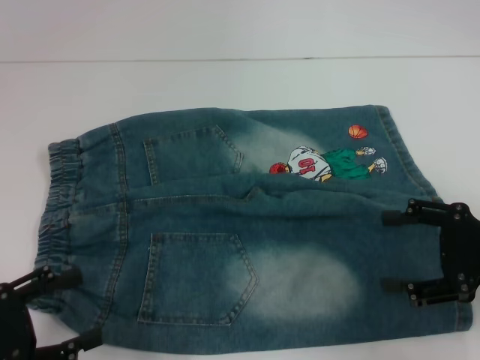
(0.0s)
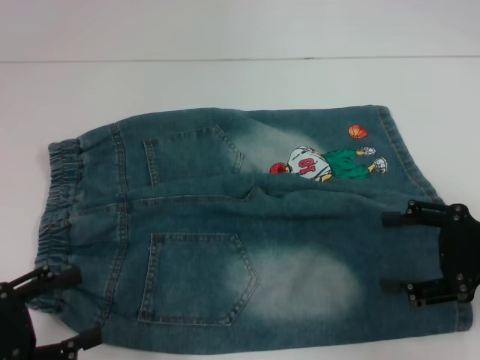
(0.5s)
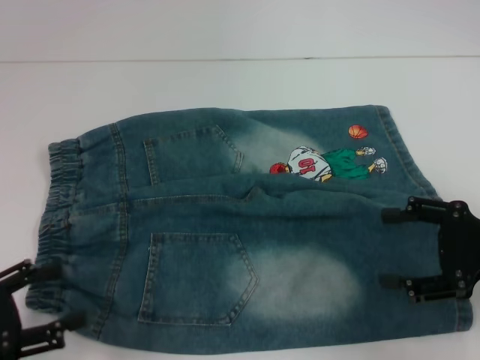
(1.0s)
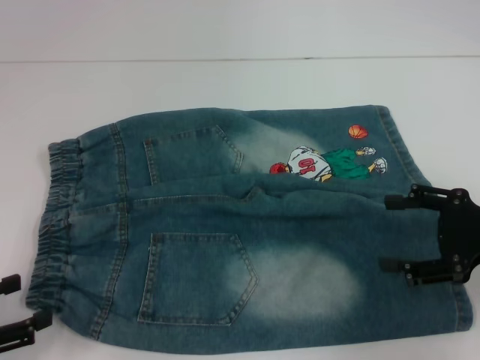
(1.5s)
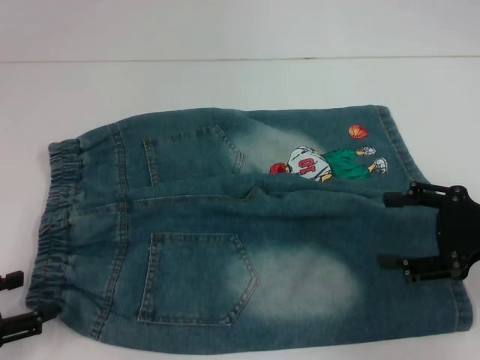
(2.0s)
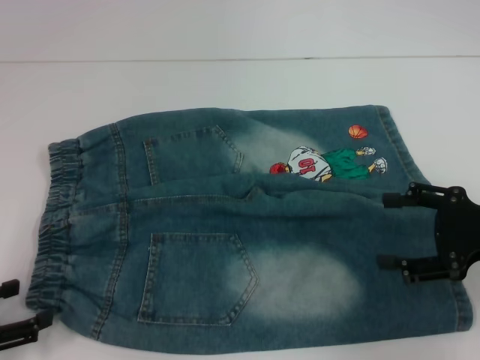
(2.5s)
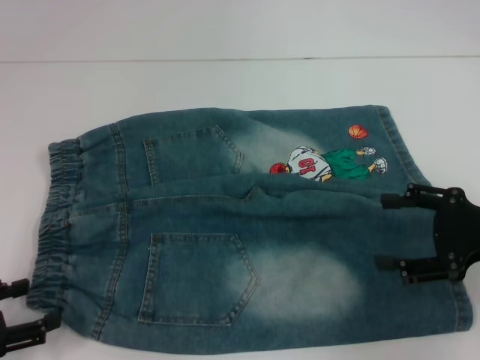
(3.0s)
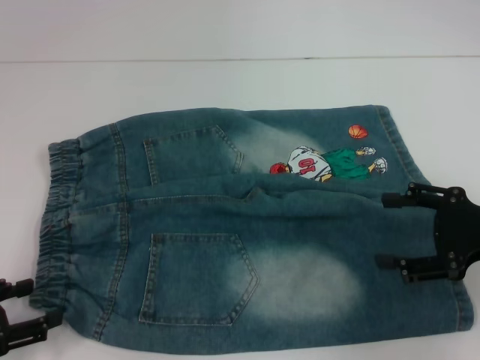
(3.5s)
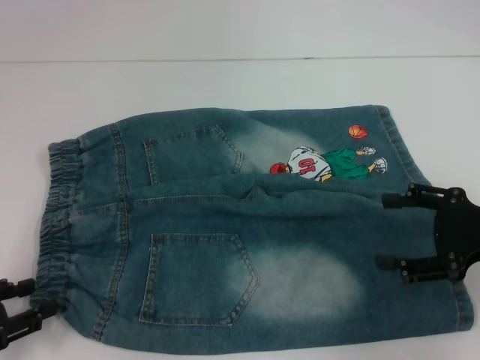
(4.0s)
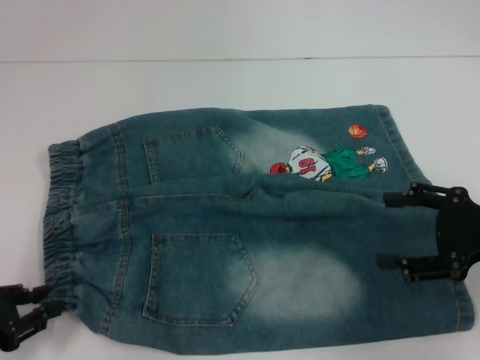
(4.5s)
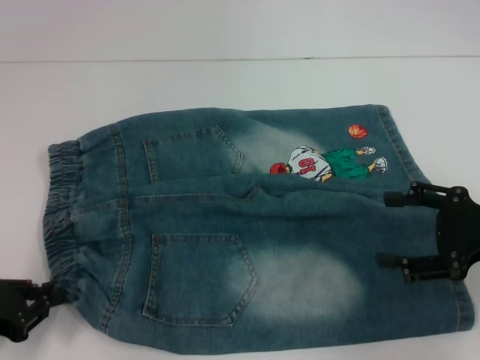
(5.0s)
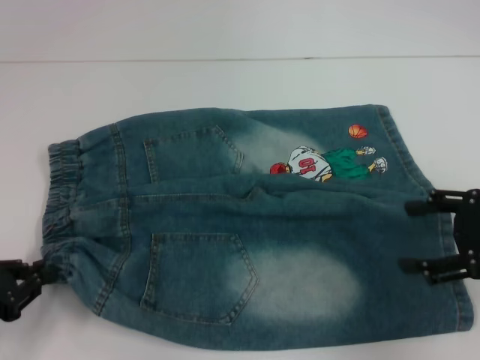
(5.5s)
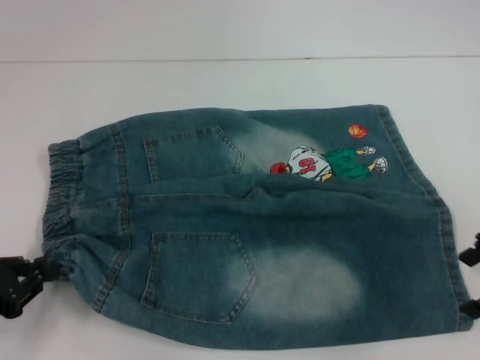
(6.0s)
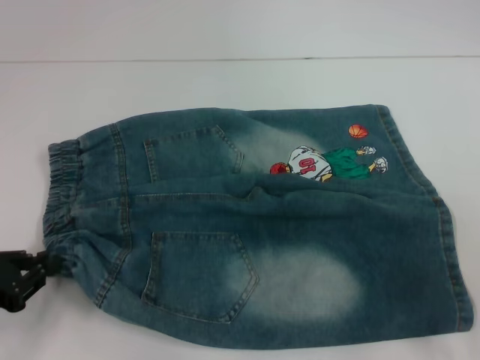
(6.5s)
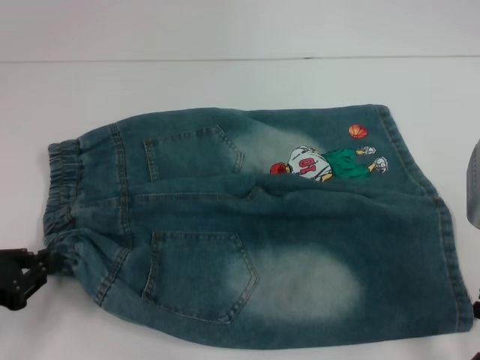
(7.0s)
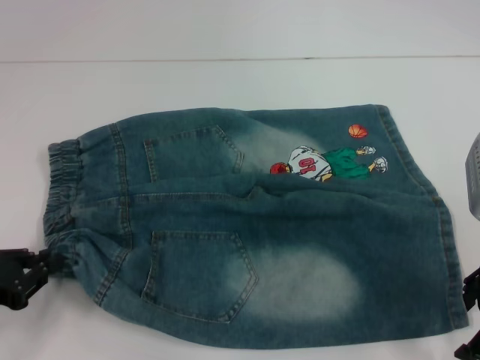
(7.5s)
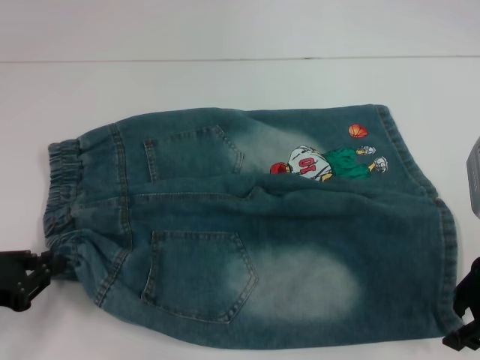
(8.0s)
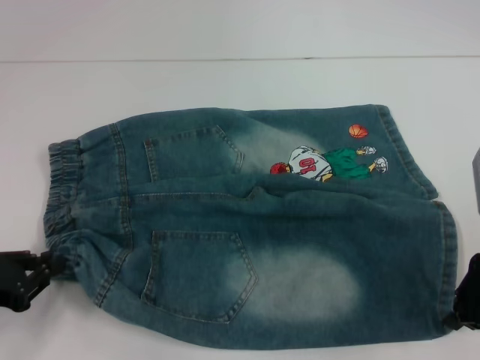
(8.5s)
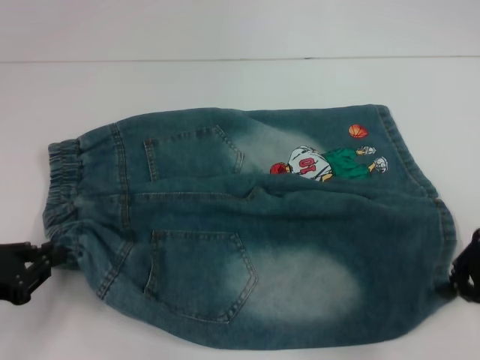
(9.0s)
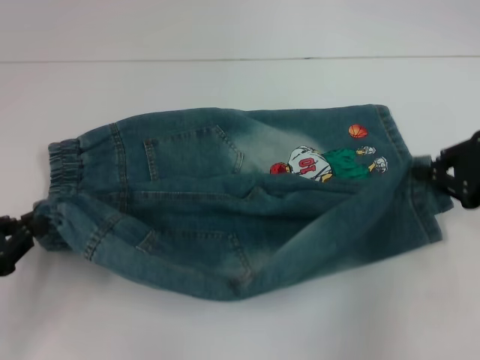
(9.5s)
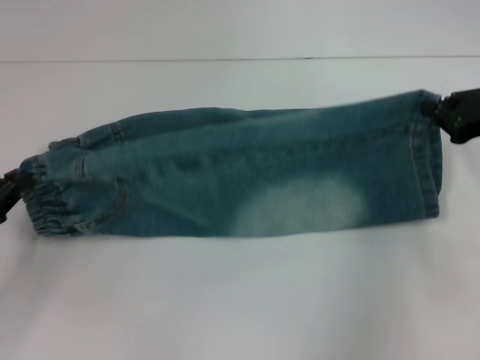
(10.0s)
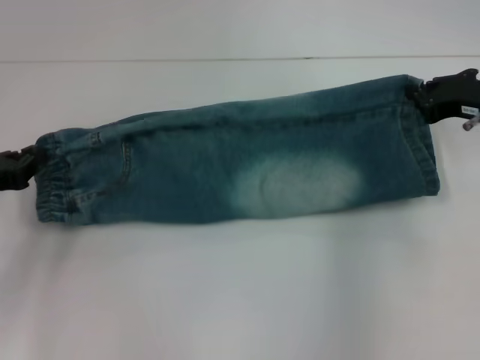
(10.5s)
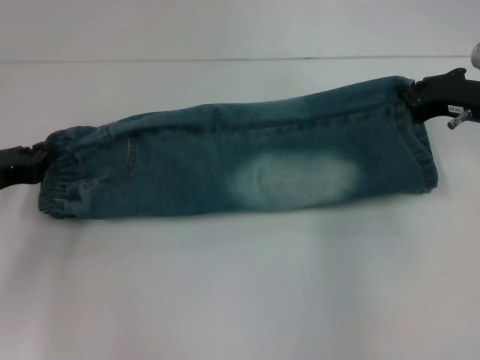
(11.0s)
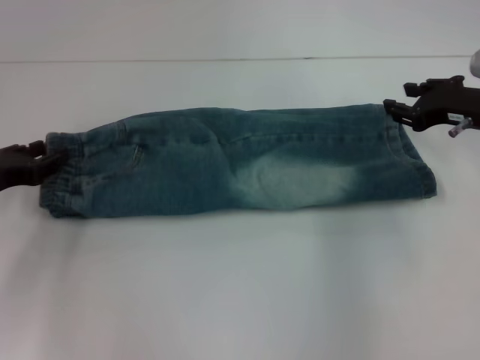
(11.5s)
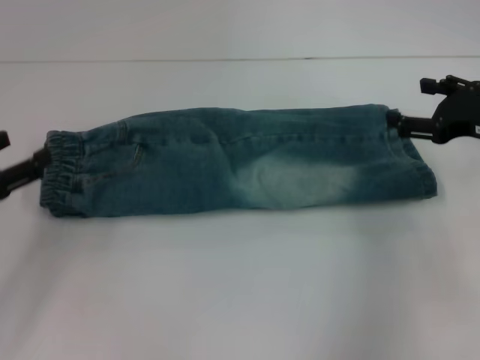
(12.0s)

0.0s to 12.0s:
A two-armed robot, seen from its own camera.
Step, 0.0s to 4.5s: Hold the lower left waistband with your left hand.
Step, 5.0s to 8.0s: Grab the lower right pant leg with your right hand.
Step, 8.5s to 11.5s: Fold upward with your right hand.
2.0s to 4.0s: The two grippers keep their place.
4.0s to 6.0s: The left gripper closes its fingers; the right gripper heads upward, covering about 5 cm.
6.0s to 8.0s: The right gripper moves roughly 5 cm.
8.0s to 10.0s: The right gripper moves to the right and forward, some 10 cm, and closes its fingers.
10.0s to 12.0s: The right gripper opens its fingers. The left gripper opens.

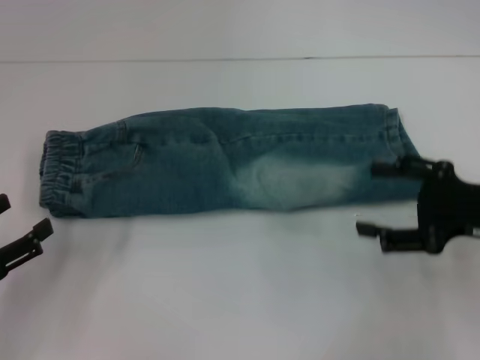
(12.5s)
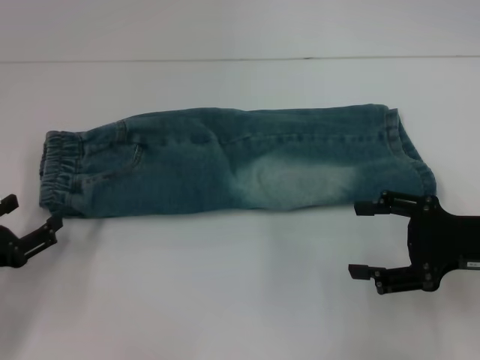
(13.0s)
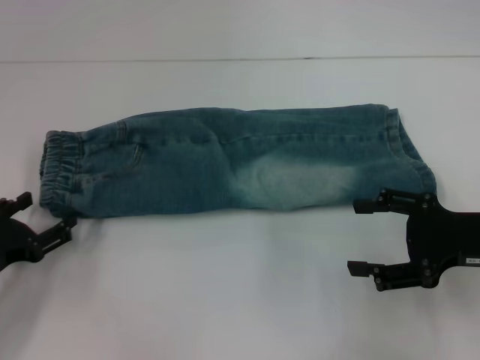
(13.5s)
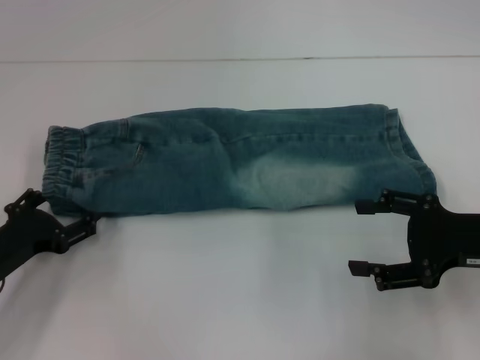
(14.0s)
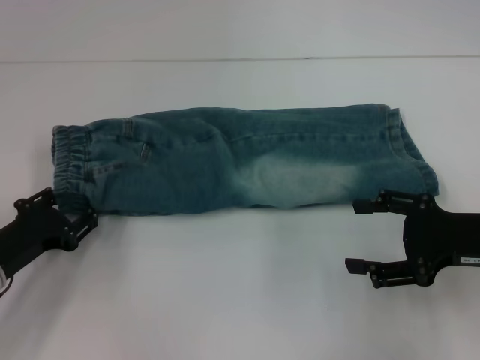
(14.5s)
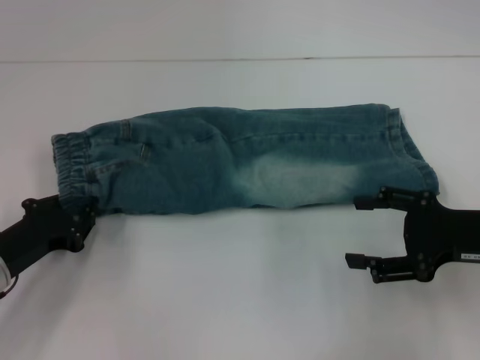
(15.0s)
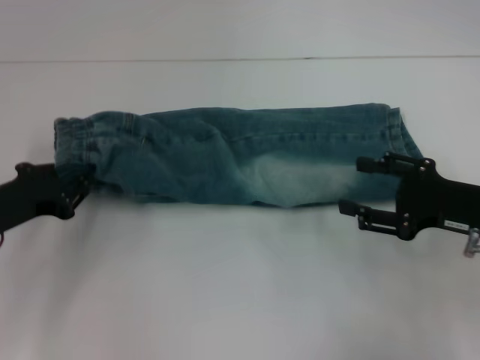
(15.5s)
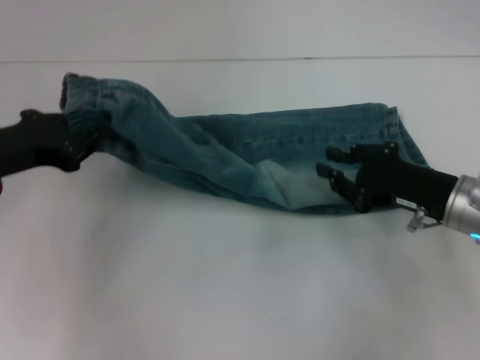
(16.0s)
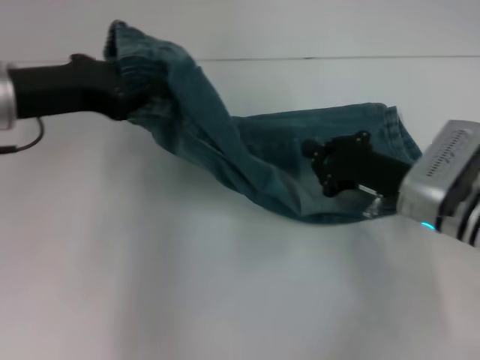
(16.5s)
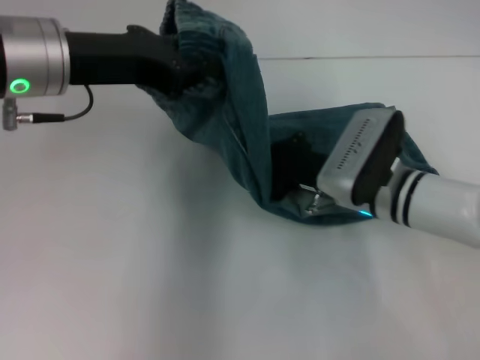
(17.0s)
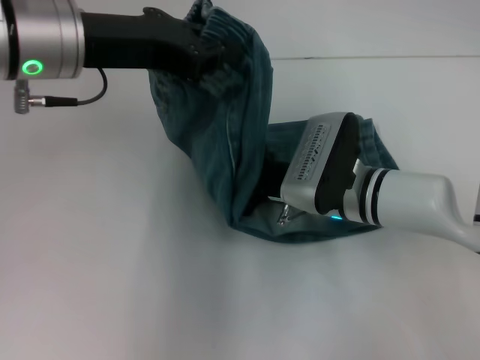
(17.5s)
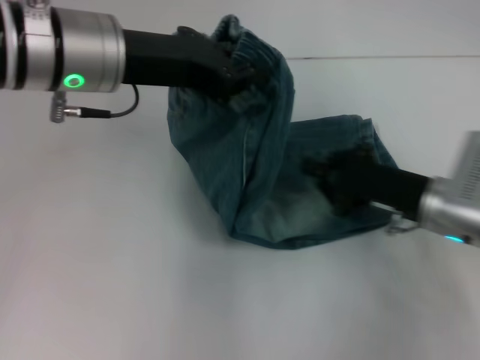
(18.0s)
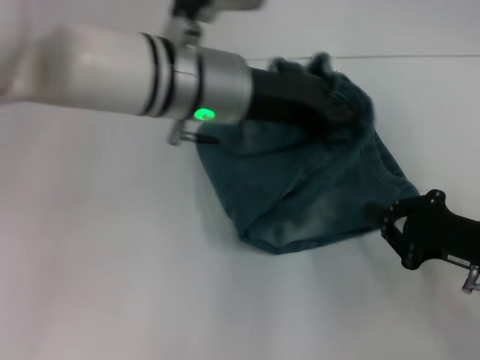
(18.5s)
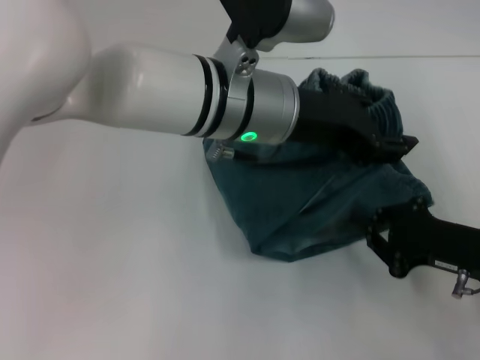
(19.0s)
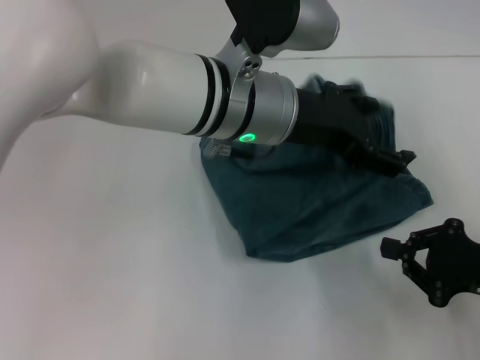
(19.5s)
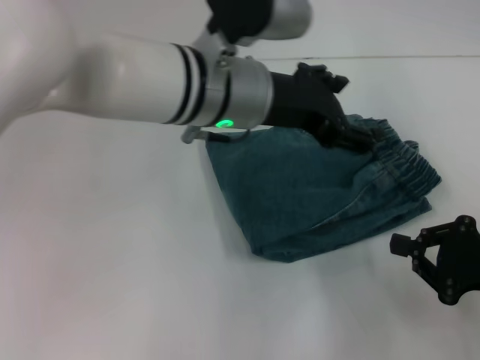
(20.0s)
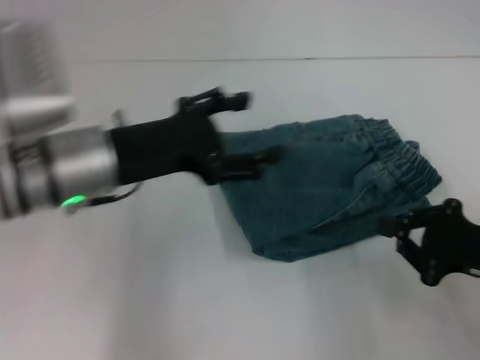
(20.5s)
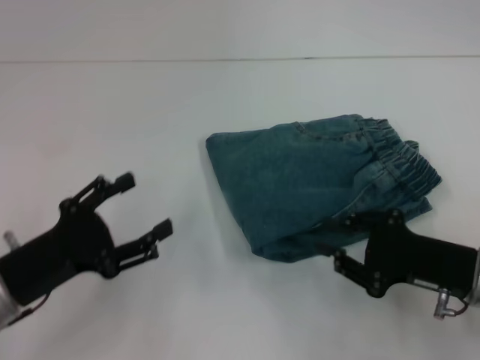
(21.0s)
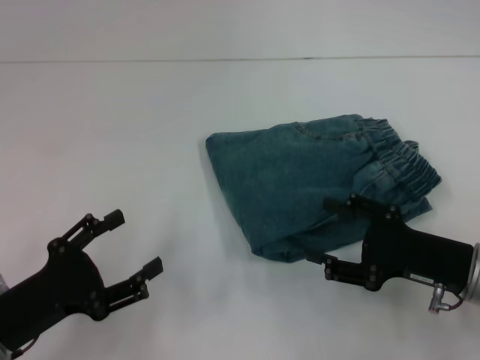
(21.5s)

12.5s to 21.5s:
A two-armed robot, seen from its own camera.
Step, 12.5s to 14.0s: Hold the waistband with your left hand.
Step, 14.5s to 17.5s: Press the middle of the pants with your right hand.
Step, 18.0s to 20.0s: Fold to the right with your left hand.
12.5s to 14.5s: The left gripper travels forward and to the right by roughly 10 cm.
14.5s to 17.0s: The right gripper heads to the left and forward, covering approximately 15 cm, and closes up, while the left gripper heads upward, to the right and forward, covering about 25 cm, and closes up.
17.0s to 19.5s: The left gripper goes some 15 cm to the right, and opens. The right gripper is displaced to the right and backward by roughly 20 cm.
19.5s to 21.5s: The right gripper travels to the left by about 5 cm, and opens its fingers. The left gripper is displaced to the left, downward and backward by about 35 cm.
